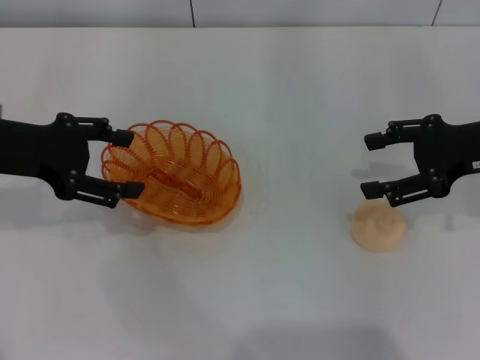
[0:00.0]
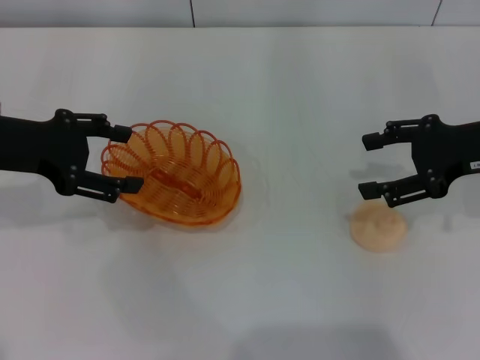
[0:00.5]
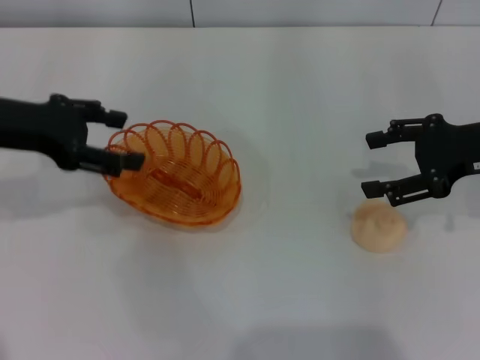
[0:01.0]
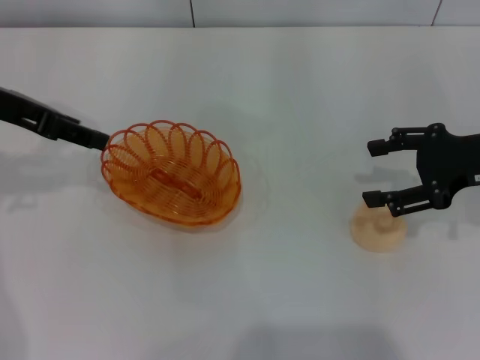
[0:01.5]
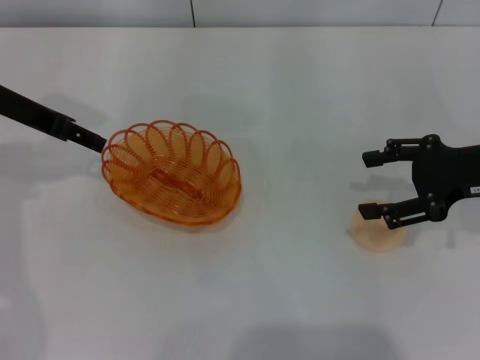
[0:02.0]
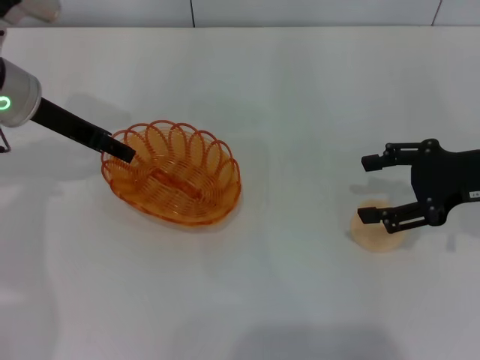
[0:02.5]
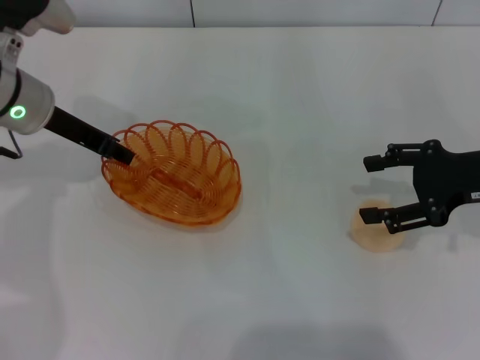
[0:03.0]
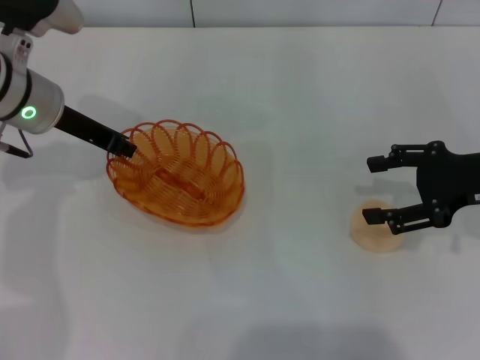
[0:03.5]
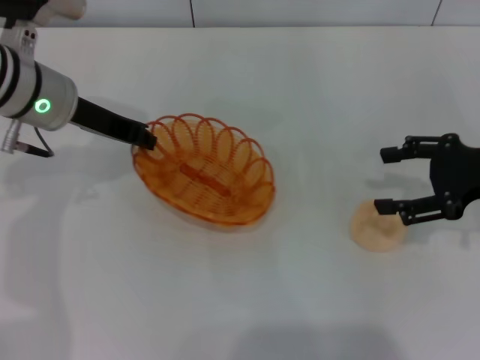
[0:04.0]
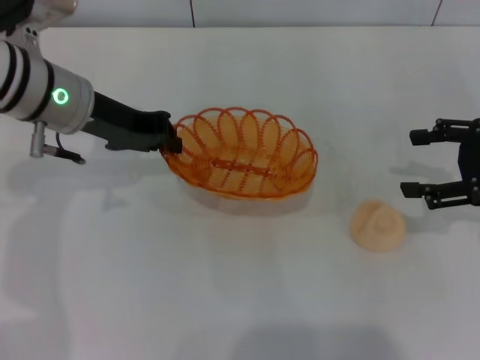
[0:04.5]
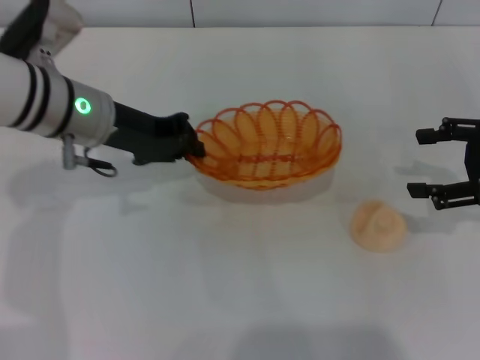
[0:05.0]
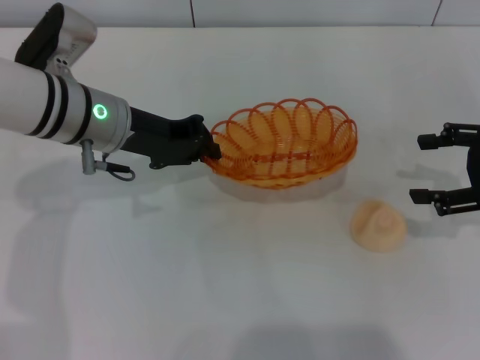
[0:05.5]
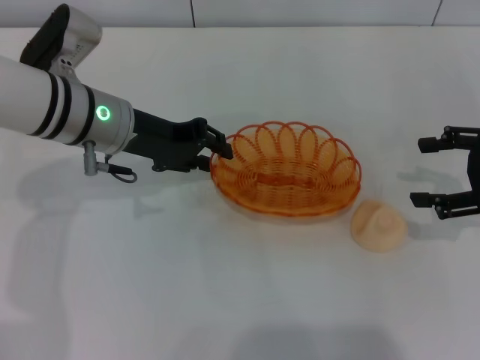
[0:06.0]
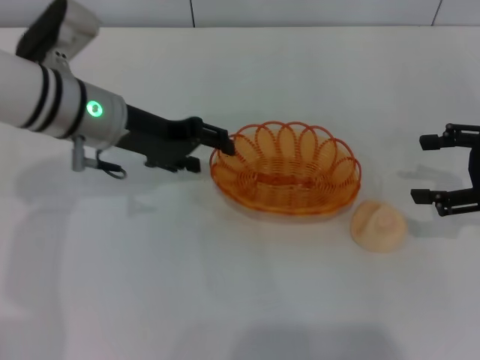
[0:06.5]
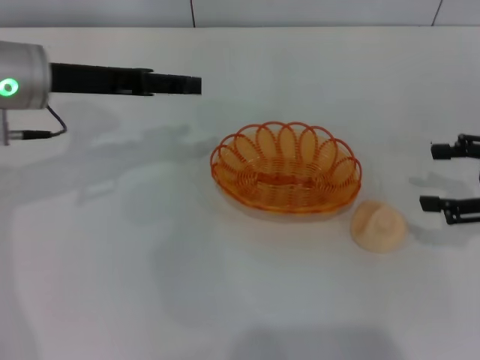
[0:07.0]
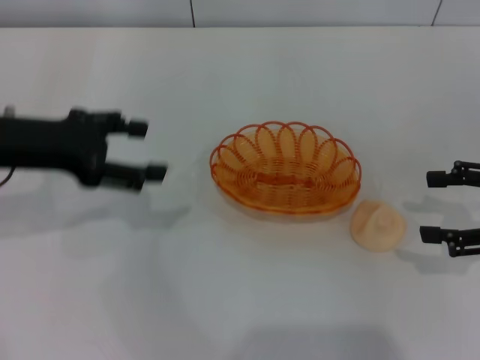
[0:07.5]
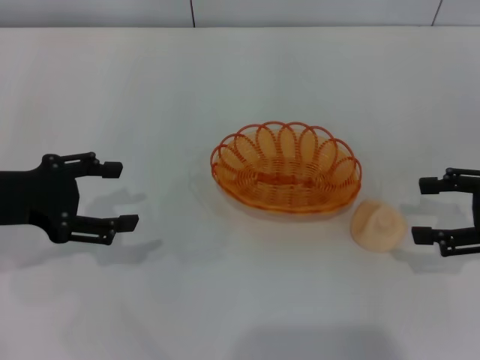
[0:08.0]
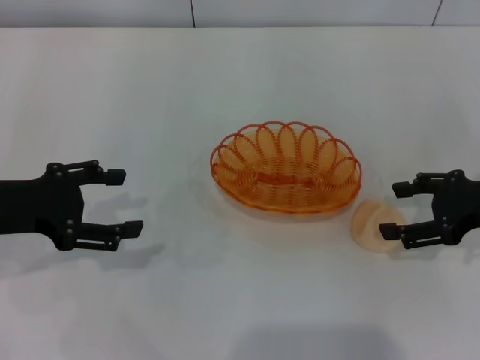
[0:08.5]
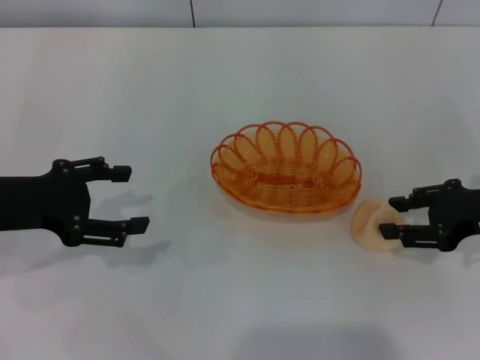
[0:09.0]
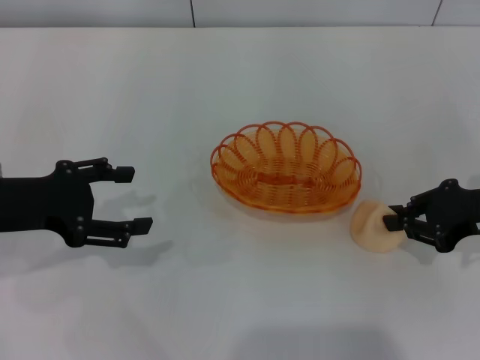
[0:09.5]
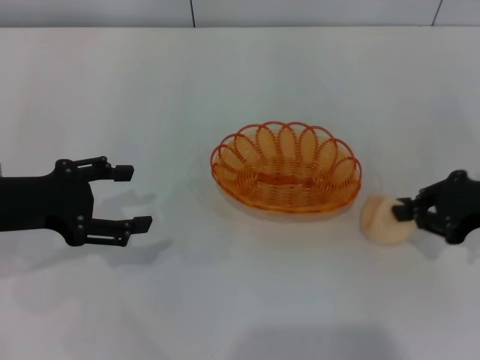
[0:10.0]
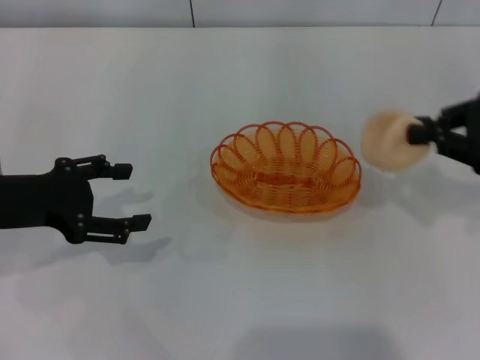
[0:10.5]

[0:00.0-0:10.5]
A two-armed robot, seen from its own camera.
Step, 0:00.0 to 0:04.0: Pick up the basket with the left gripper.
Step, 0:04.5 to 0:06.5: Place the basket in the center of view with the left gripper.
Step, 0:07.0 to 0:10.0: Pick up the egg yolk pastry with the right gripper.
0:00.0 to 0:02.0: The left gripper moves forward, some 5 cm.
0:02.0 to 0:04.0: The left gripper shifts about 5 cm to the right, and closes.
0:04.0 to 0:06.5: The left gripper opens.
0:06.5 to 0:08.5: The left gripper moves to the left and backward, roughly 15 cm.
0:08.5 to 0:10.5: The right gripper goes about 5 cm upward, and closes.

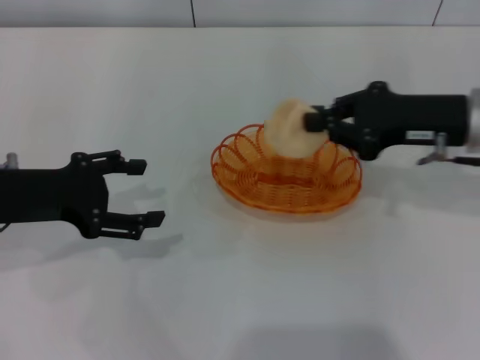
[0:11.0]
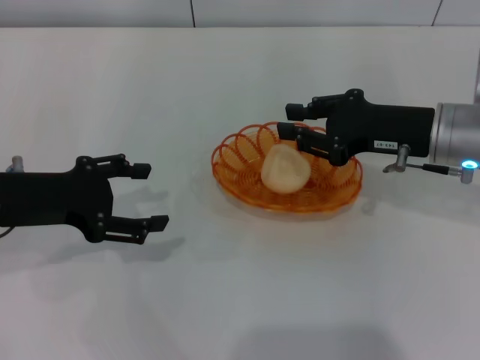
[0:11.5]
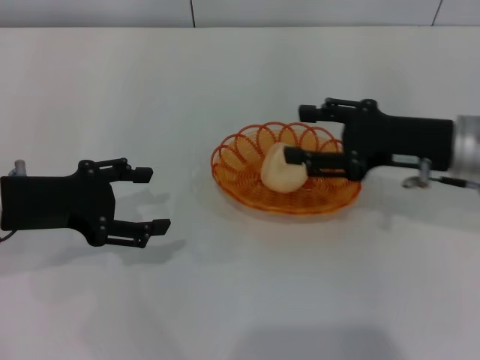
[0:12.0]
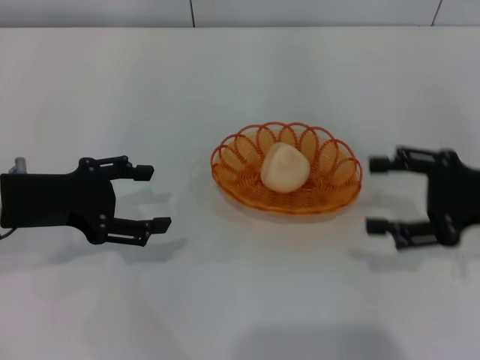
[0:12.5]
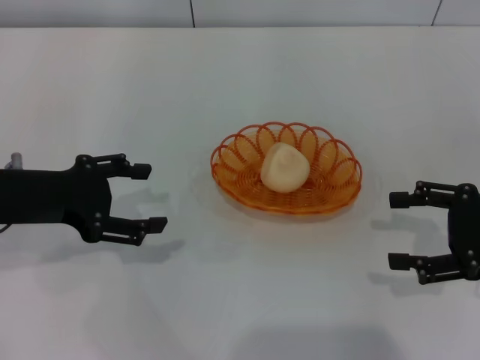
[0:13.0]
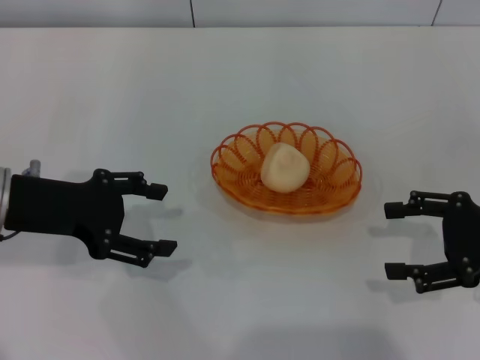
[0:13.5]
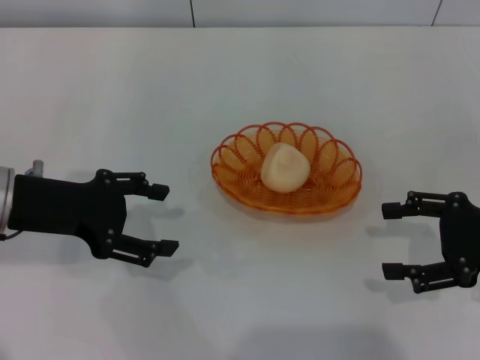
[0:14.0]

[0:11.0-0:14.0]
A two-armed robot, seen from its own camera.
Step, 0:11.0 to 0:12.0: Place the egg yolk pastry into the basket with the right gripper.
0:11.0 to 0:12.5: The right gripper heads to the right and backward, covering about 10 cm, and opens.
0:12.5 to 0:14.0: There are only small adjustments of the grippers.

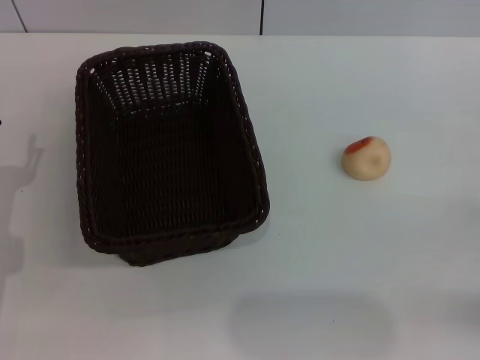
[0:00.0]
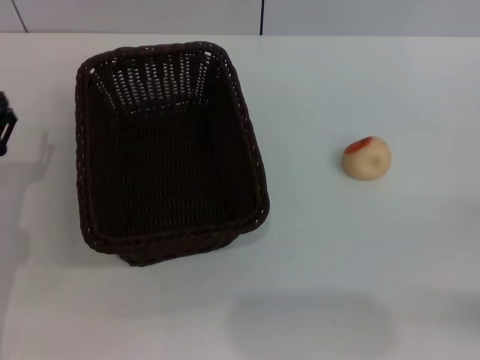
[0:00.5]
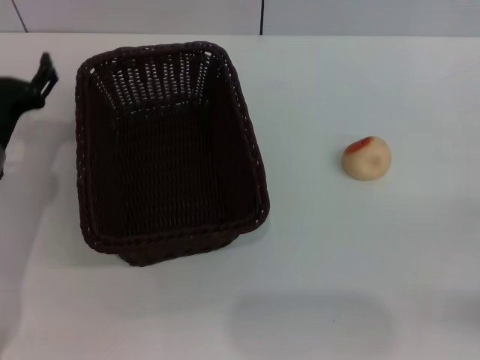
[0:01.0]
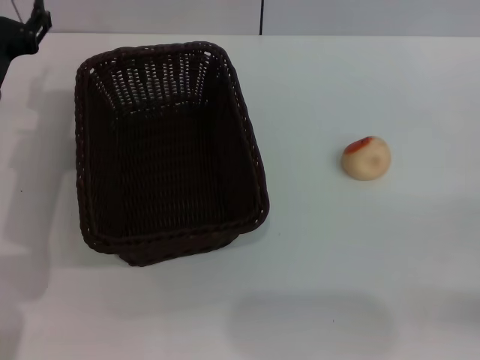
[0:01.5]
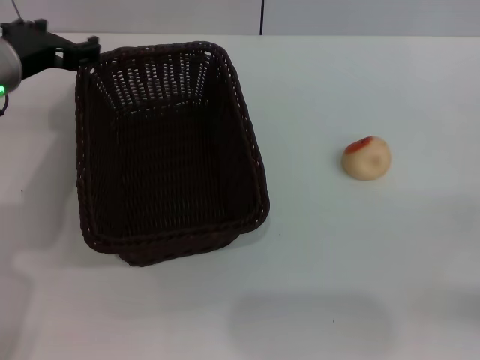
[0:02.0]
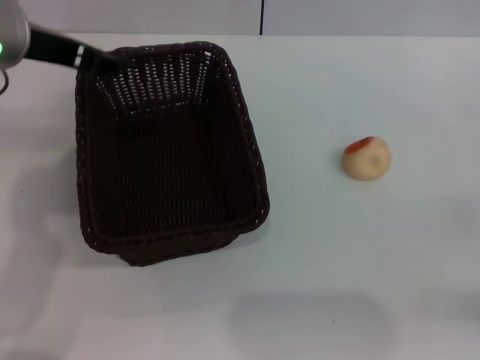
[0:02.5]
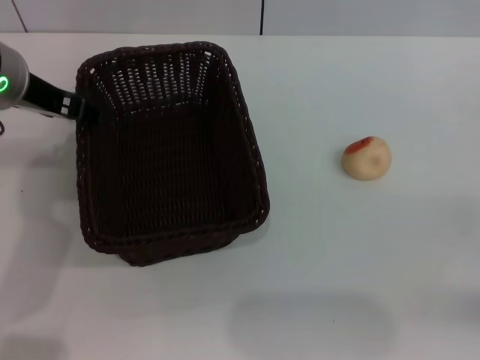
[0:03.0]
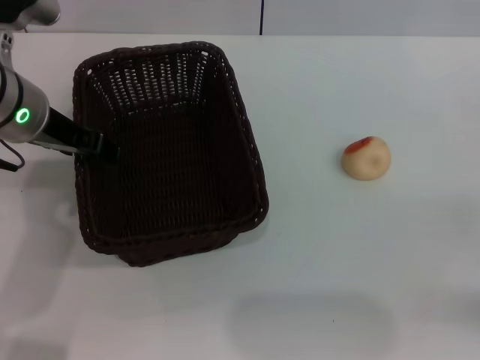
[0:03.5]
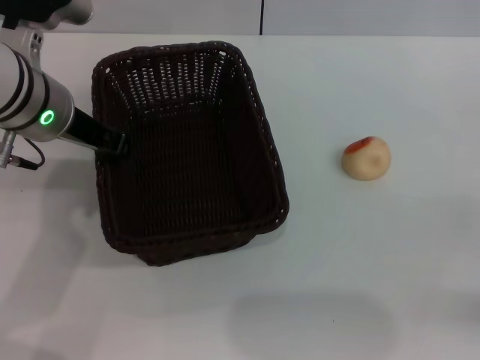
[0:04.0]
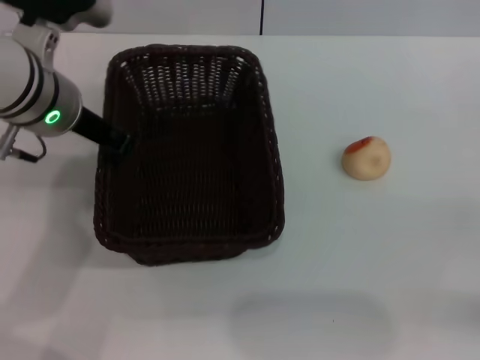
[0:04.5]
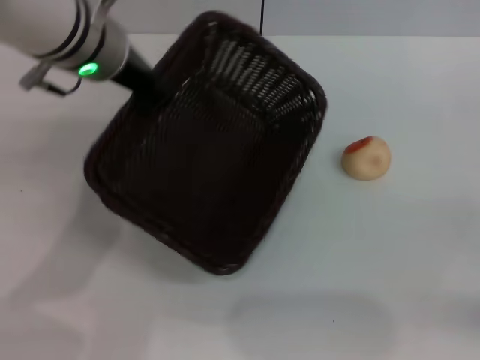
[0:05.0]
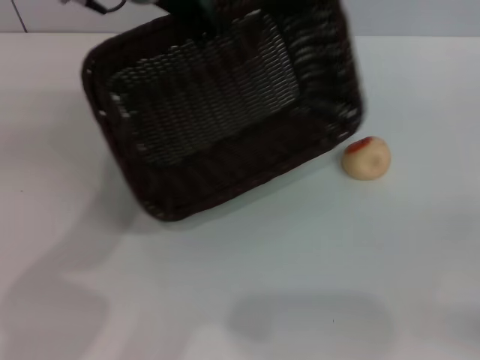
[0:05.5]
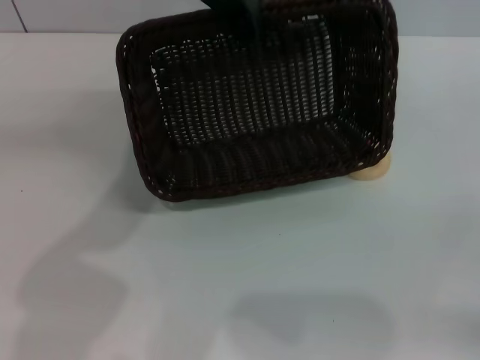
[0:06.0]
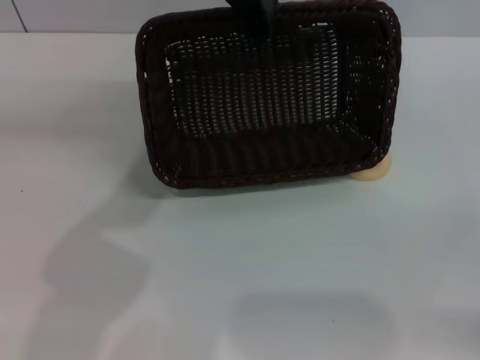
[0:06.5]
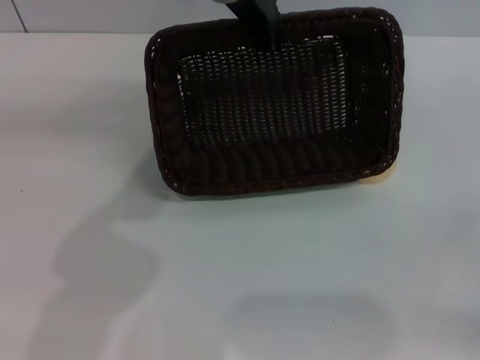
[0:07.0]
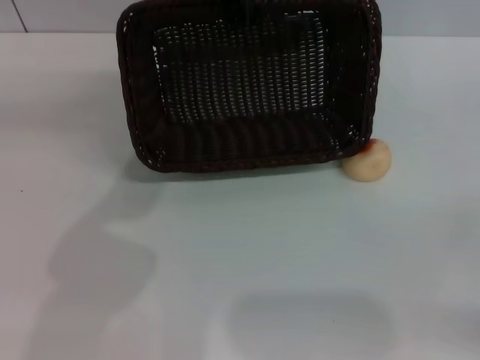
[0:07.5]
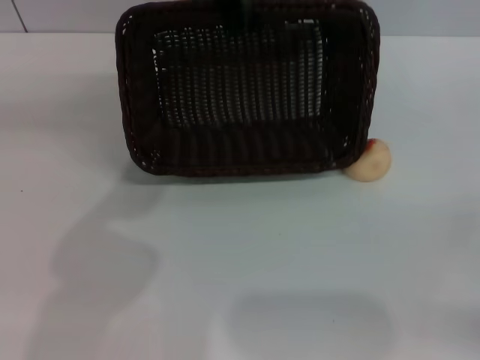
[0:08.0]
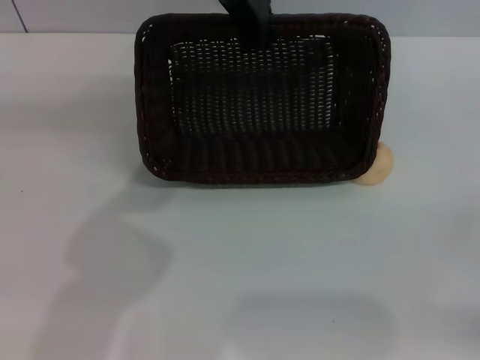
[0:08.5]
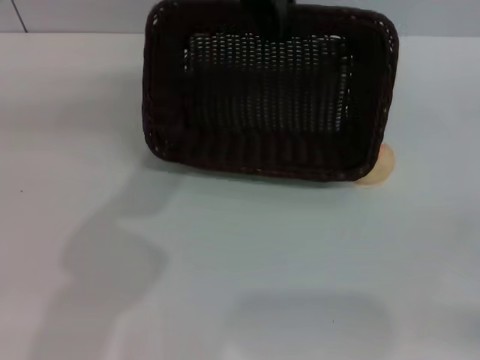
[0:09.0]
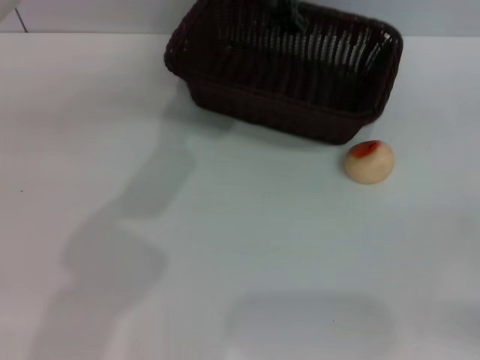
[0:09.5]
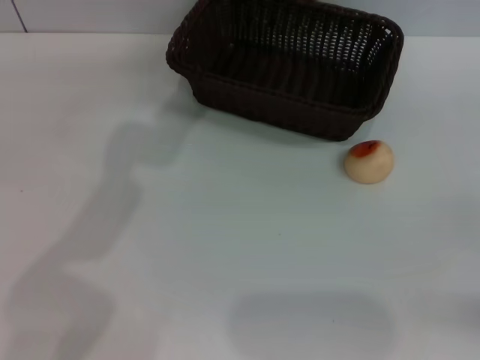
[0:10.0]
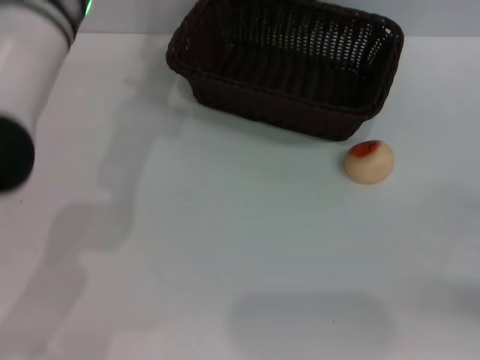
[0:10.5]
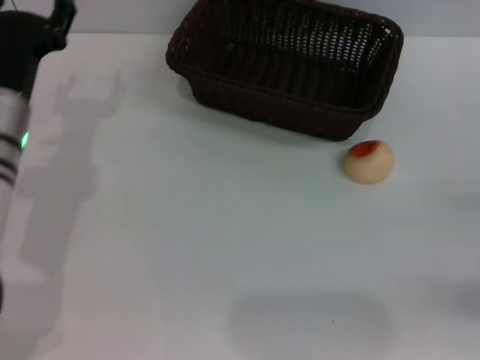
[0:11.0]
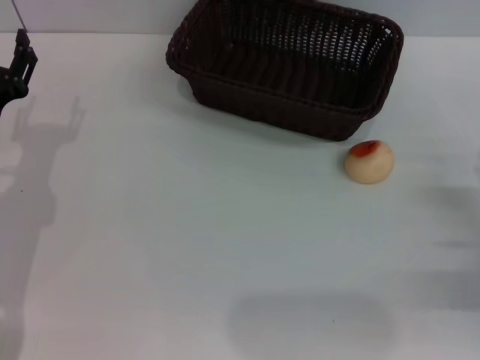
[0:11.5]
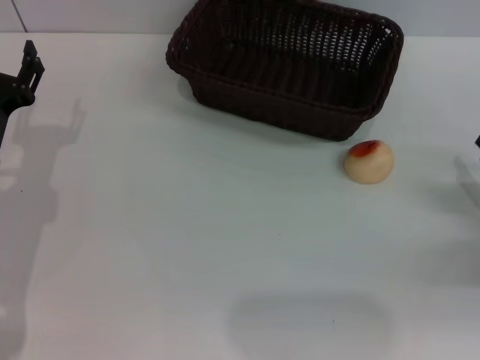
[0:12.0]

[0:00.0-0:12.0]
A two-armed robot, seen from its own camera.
Step, 0:00.0 to 0:09.5: Move the basket to the center of view with the left gripper.
0:00.0 to 0:02.0: The left gripper travels upward, forward and to the right by roughly 20 cm.
0:02.0 to 0:04.0: The left gripper travels to the right by roughly 5 cm, and closes.
0:04.0 to 0:06.0: The left gripper travels to the right, upward and forward by about 15 cm, and closes up.
0:06.0 to 0:08.0: The grippers make only small movements.
0:08.0 to 0:10.0: The left gripper opens its fingers.
0:10.0 to 0:12.0: The left gripper goes some 30 cm downward, to the left and backward, while the right gripper shifts approximately 5 cm forward.
